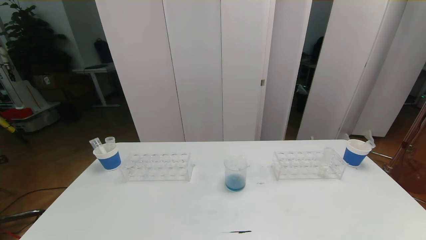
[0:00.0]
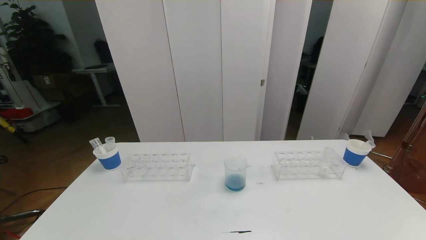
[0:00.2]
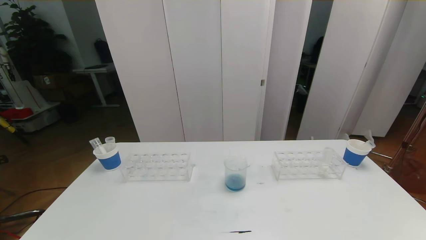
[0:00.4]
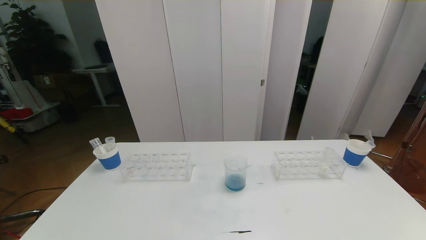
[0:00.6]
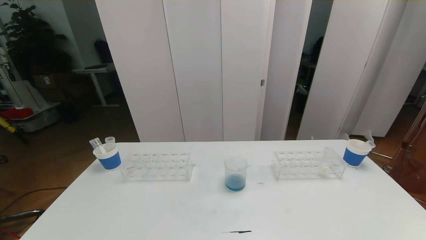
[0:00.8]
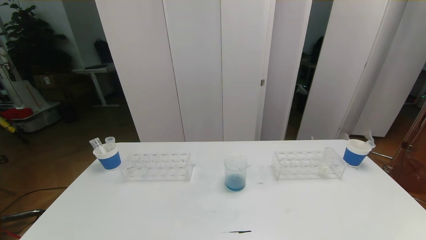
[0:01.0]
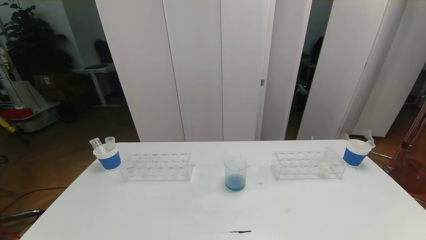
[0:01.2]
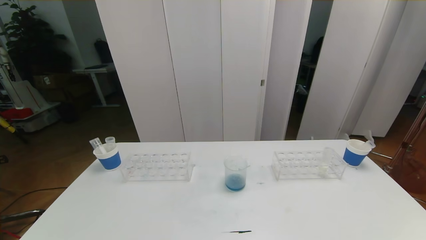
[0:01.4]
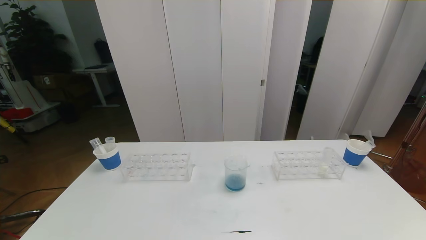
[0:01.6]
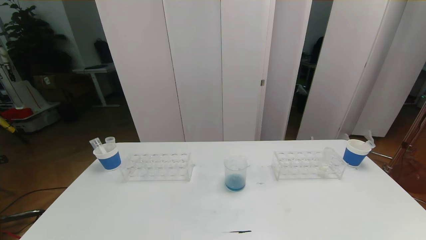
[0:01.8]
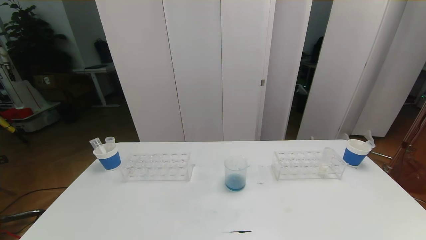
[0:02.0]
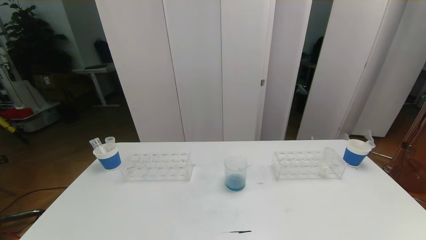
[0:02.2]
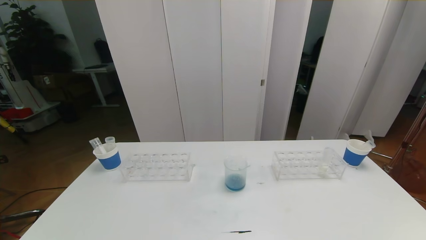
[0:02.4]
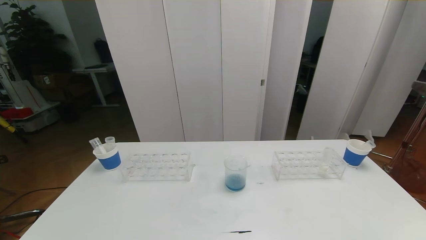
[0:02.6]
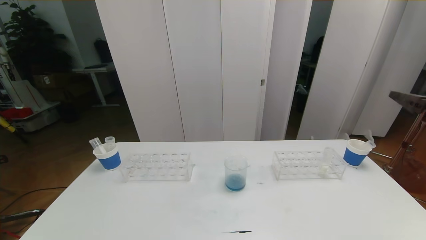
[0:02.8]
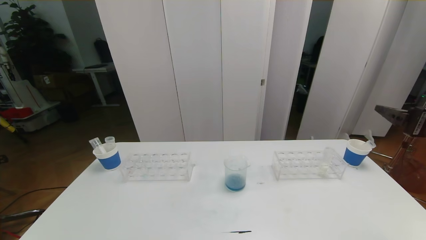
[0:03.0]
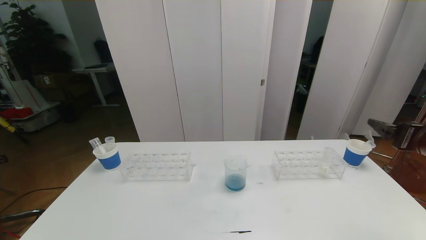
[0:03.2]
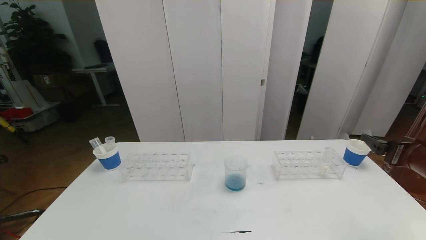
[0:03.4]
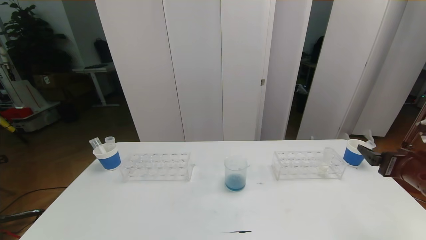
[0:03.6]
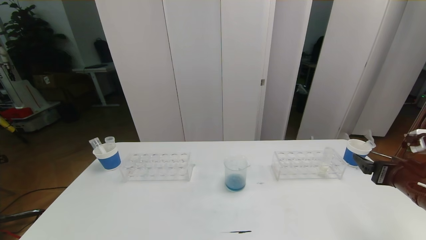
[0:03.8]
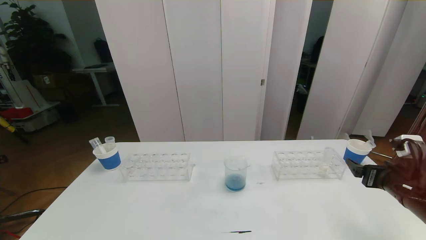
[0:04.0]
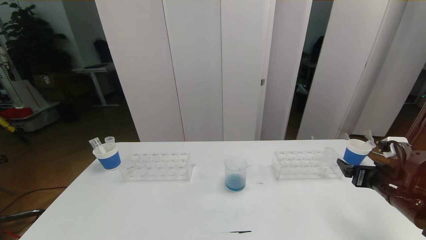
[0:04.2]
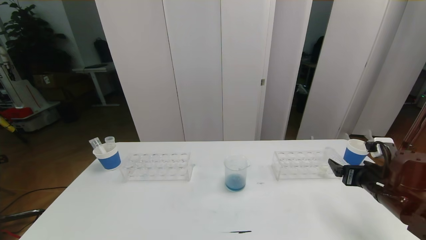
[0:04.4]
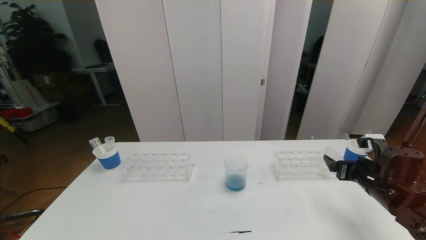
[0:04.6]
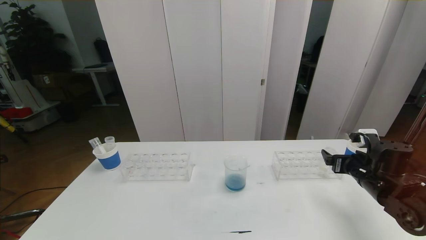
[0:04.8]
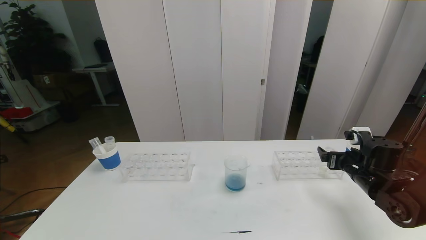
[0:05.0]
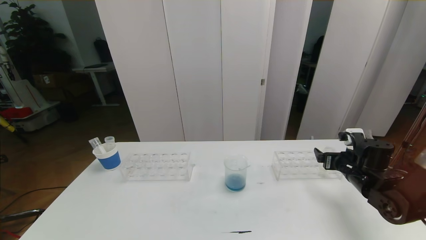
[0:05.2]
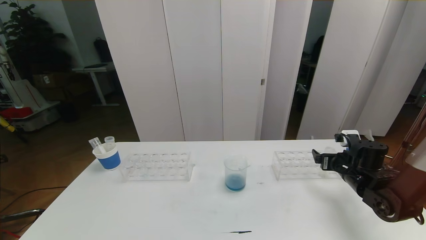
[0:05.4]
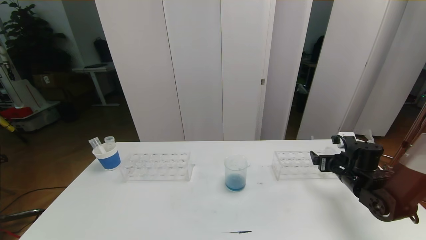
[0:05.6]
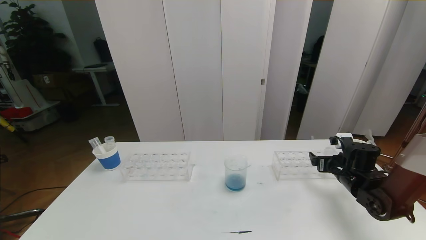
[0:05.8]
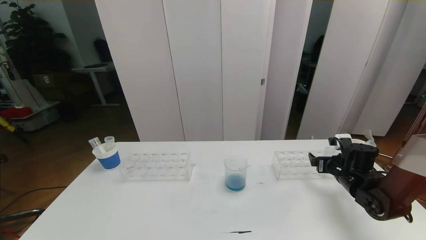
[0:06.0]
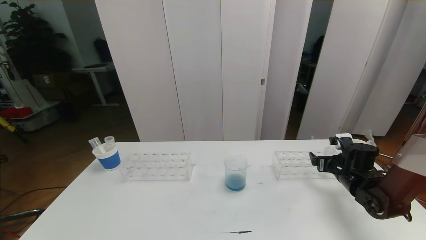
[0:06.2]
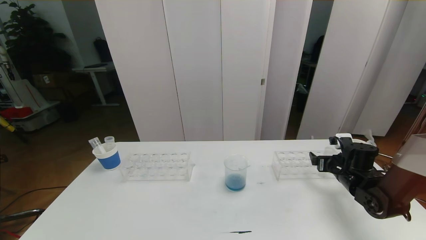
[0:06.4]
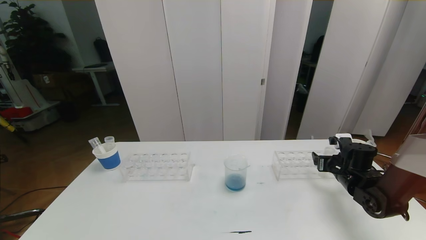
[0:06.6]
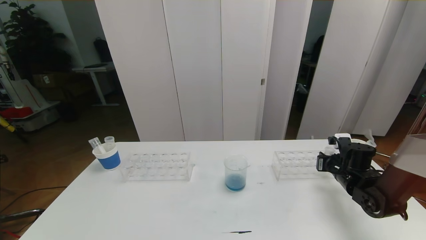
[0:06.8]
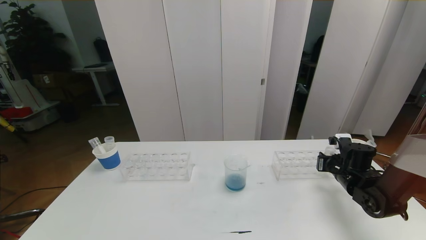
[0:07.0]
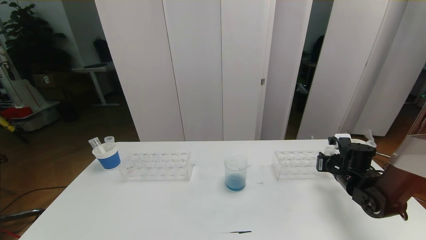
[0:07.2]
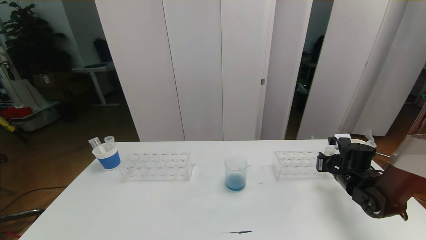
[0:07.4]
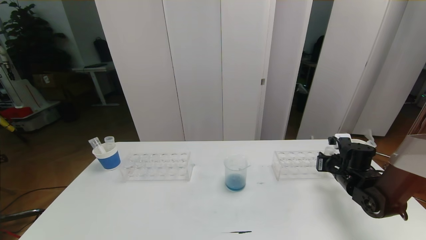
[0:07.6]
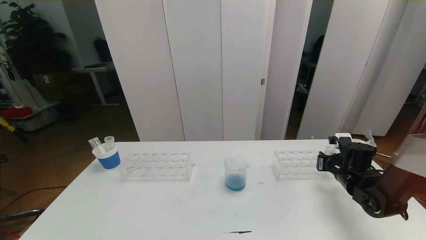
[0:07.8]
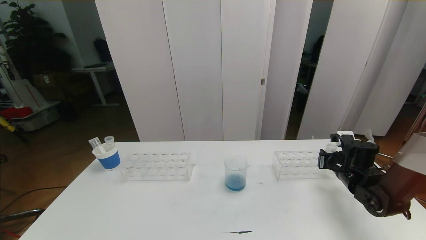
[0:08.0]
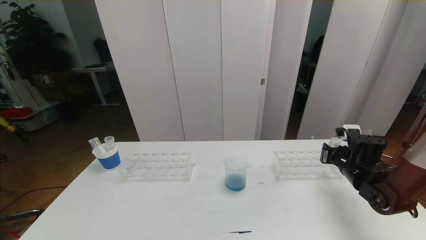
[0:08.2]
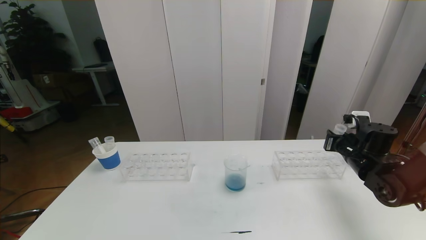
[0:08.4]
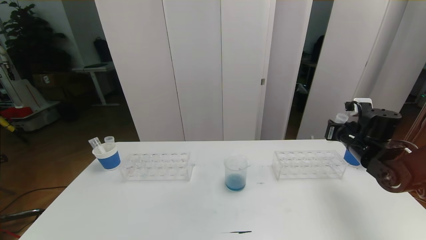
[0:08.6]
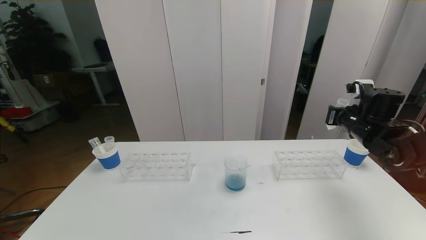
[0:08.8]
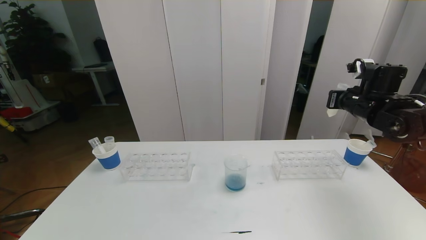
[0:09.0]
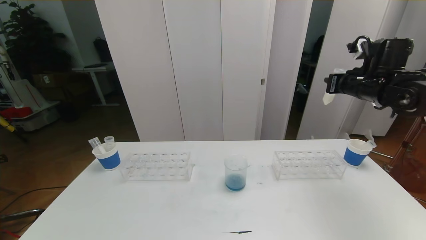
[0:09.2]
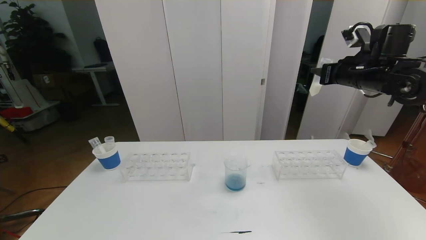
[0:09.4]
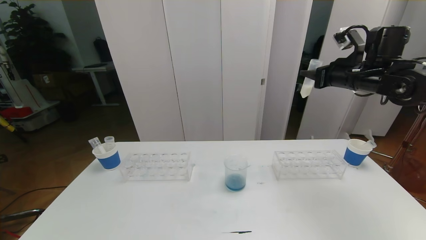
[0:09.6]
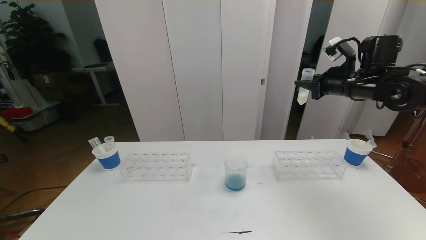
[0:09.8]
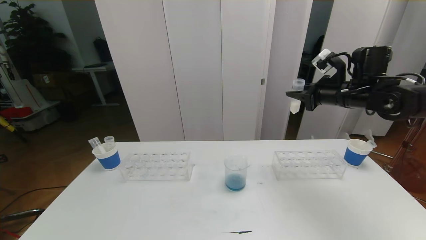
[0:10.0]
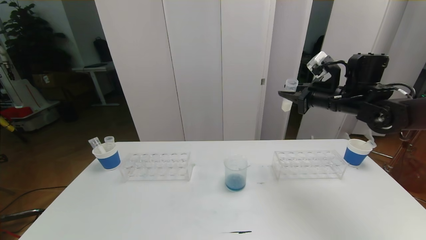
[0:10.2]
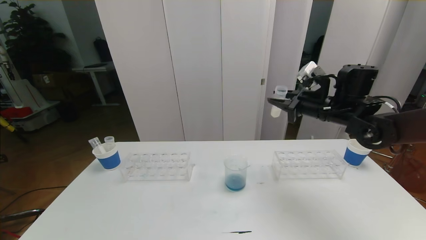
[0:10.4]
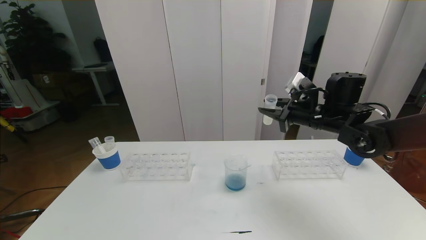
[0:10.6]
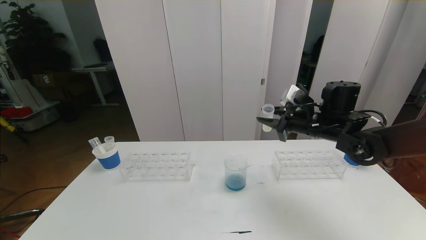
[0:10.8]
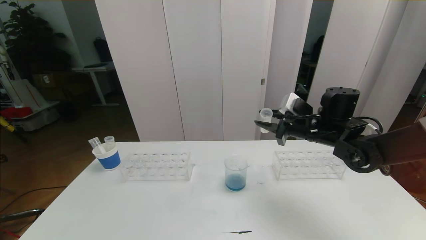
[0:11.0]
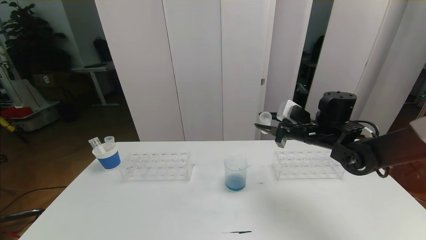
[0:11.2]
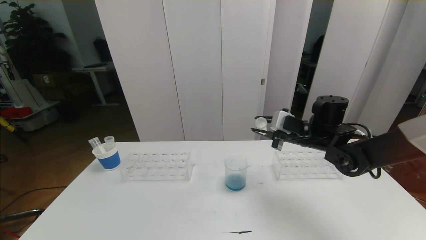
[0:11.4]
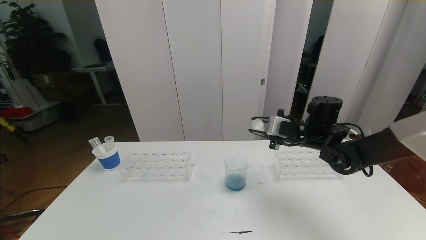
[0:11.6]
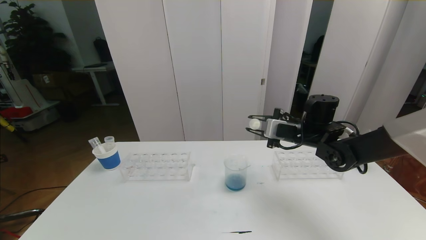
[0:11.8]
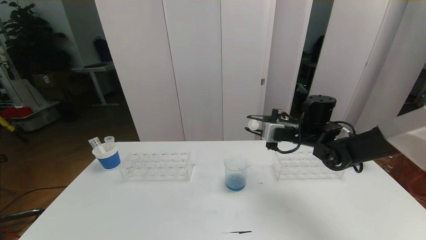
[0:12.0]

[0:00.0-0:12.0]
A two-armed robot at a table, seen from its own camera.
Task of the whole recording: pick up the test tube with red pigment the test tube with blue pigment and the test tube with white pigment by grippers and pour them into the beaker.
0:03.0 to 0:04.4: The right gripper goes approximately 15 cm downward.
0:04.4 to 0:06.0: The right gripper is displaced forward and downward by roughly 10 cm.
0:06.0 to 0:07.6: The right gripper closes up.
0:07.6 to 0:09.0: The right gripper heads upward, covering about 20 cm.
0:09.0 to 0:10.4: The right gripper heads to the left, covering approximately 10 cm.
0:10.4 to 0:12.0: The right gripper moves downward, approximately 5 cm.

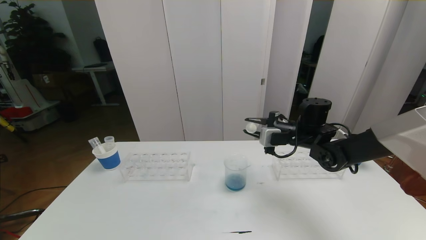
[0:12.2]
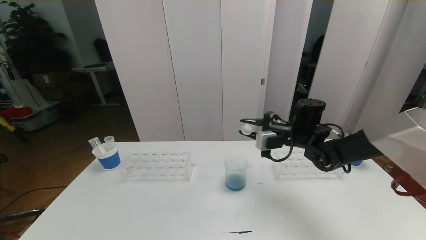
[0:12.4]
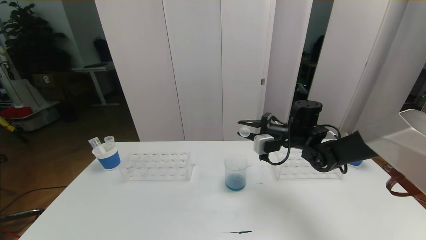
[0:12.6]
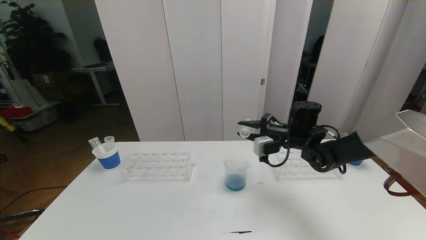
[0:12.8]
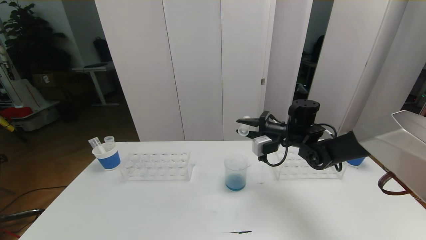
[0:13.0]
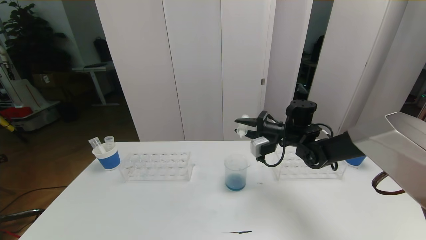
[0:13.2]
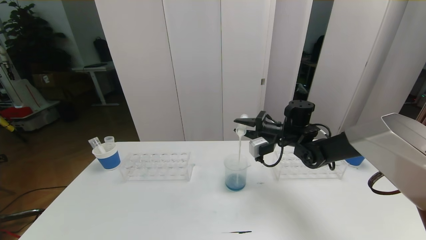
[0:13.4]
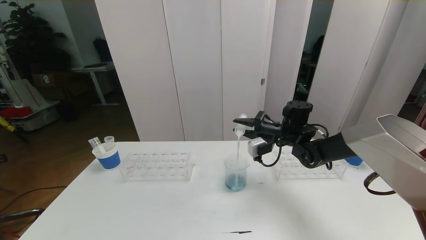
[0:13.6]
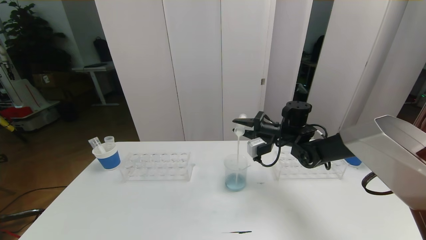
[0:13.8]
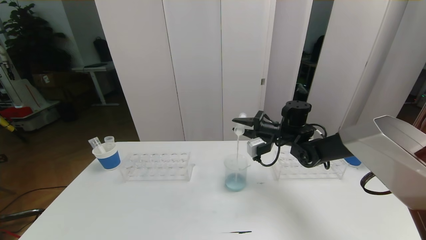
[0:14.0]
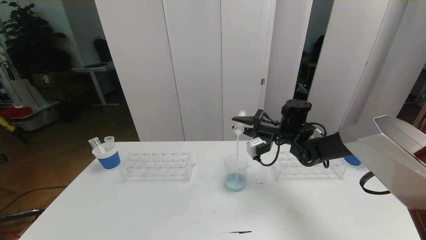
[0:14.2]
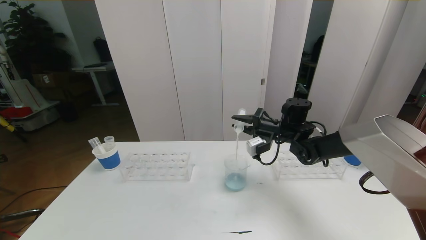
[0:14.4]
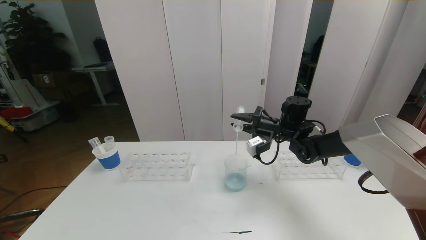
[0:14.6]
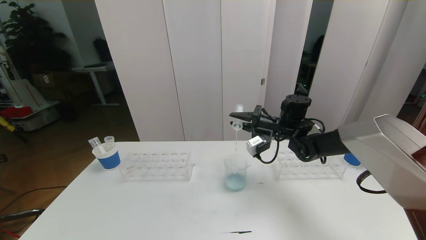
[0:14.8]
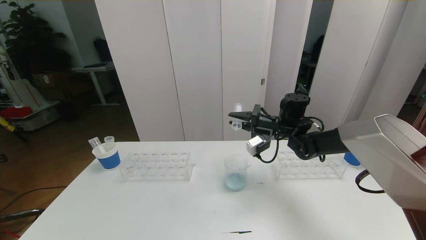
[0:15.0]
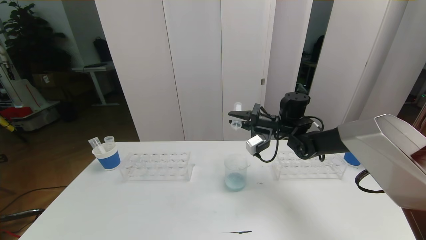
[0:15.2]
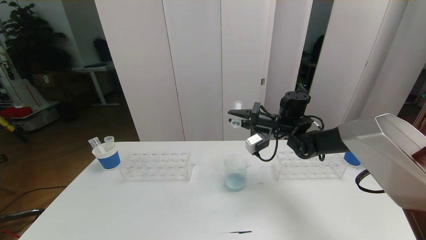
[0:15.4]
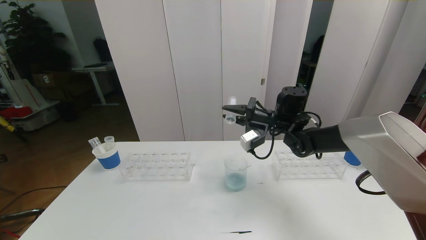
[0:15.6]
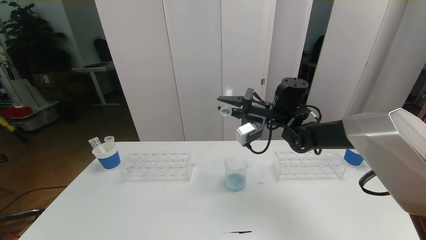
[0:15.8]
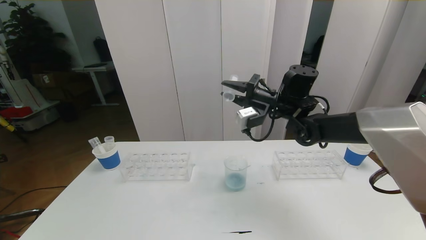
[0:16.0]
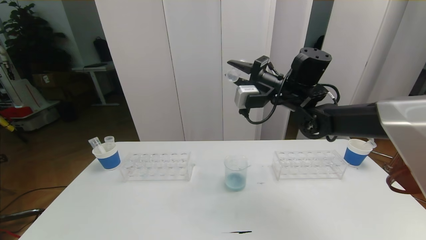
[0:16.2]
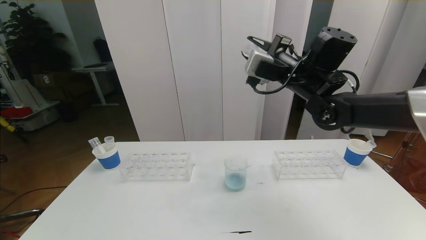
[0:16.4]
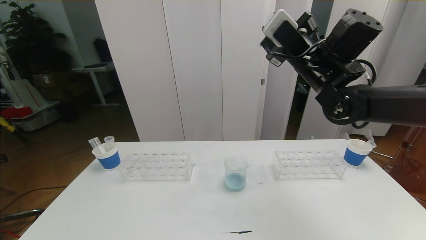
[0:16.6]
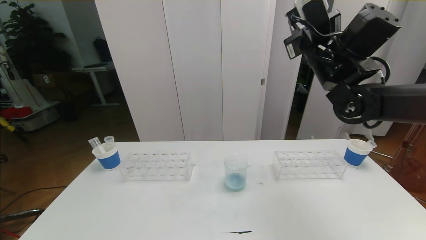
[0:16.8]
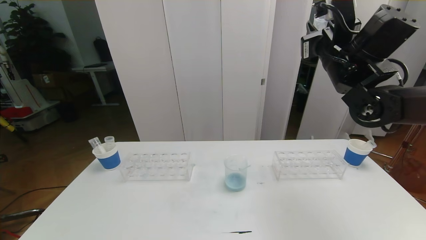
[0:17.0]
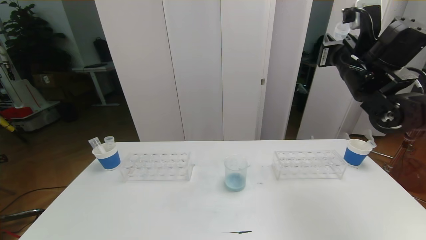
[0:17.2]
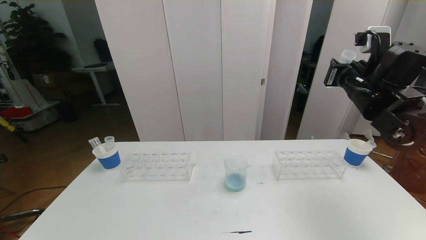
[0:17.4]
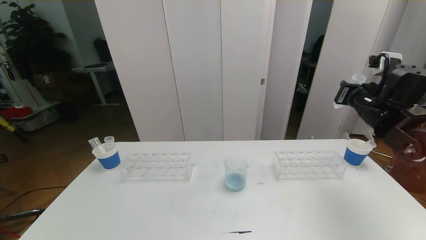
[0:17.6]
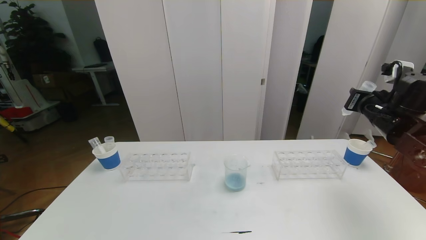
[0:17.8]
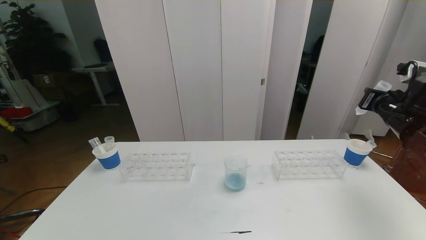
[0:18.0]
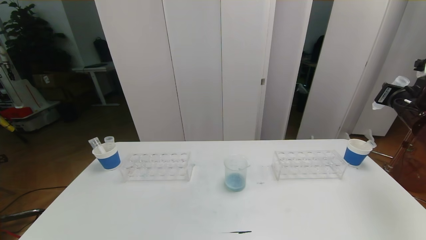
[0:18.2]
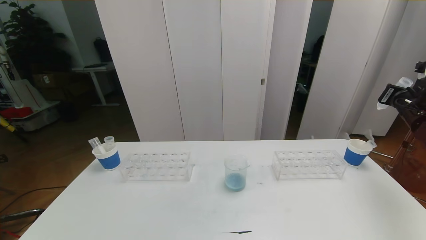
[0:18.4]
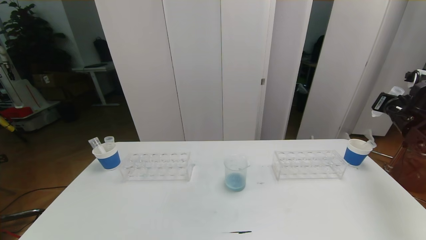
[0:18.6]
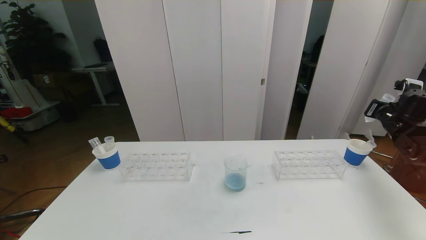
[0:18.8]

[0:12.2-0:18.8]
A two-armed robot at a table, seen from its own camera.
Task of the whole recording: pick up the test tube with red pigment the test tube with blue pigment and the test tube with white pigment by grippers and pour them into the beaker.
0:13.8 to 0:15.4: The grippers stay close to where they were, moving slightly.
0:15.4 to 0:17.2: The right gripper goes about 20 cm upward, to the right and backward.
0:17.2 to 0:18.8: The right gripper goes approximately 25 cm to the right and downward.
